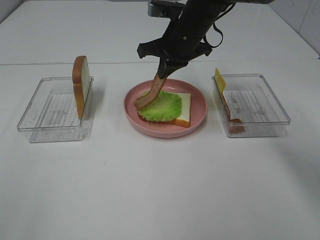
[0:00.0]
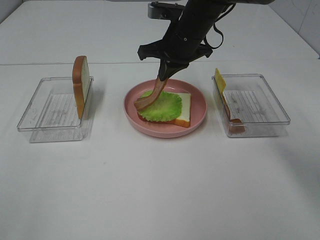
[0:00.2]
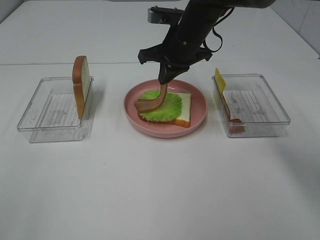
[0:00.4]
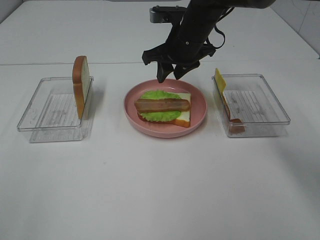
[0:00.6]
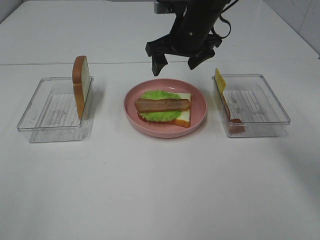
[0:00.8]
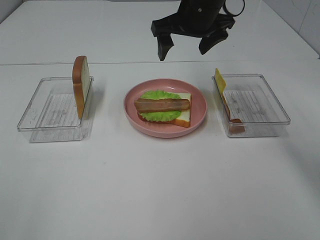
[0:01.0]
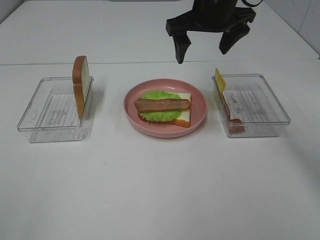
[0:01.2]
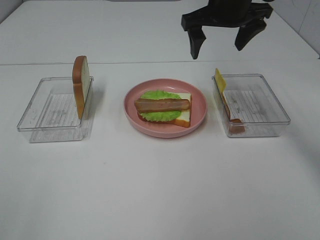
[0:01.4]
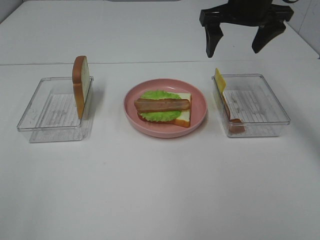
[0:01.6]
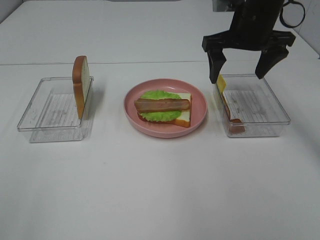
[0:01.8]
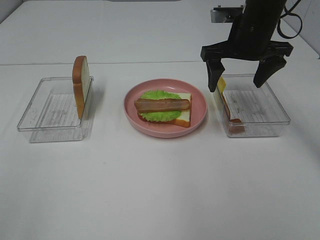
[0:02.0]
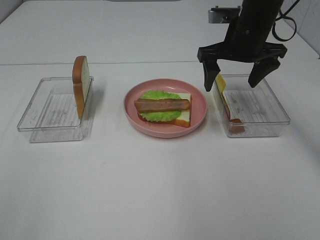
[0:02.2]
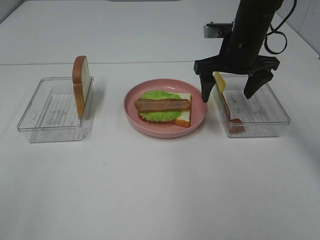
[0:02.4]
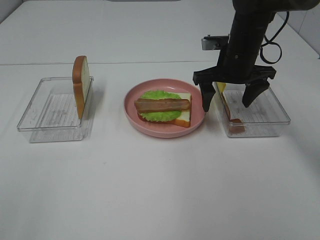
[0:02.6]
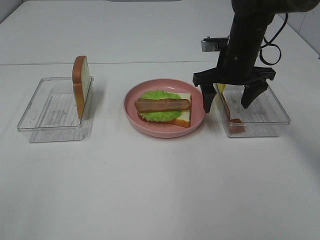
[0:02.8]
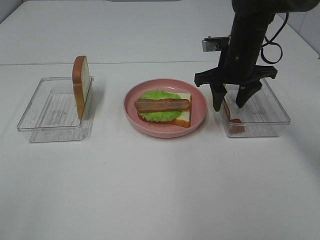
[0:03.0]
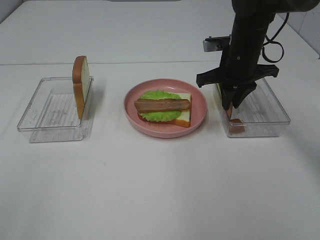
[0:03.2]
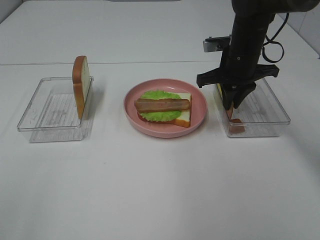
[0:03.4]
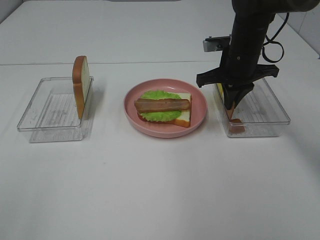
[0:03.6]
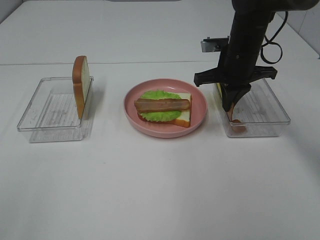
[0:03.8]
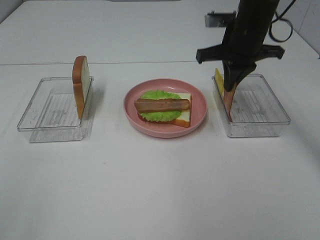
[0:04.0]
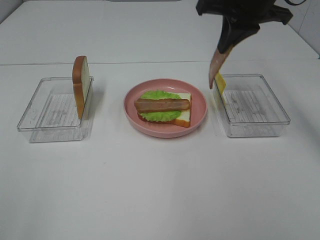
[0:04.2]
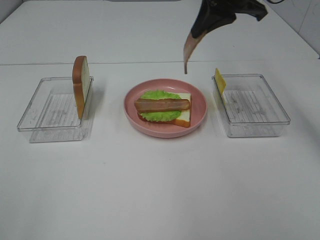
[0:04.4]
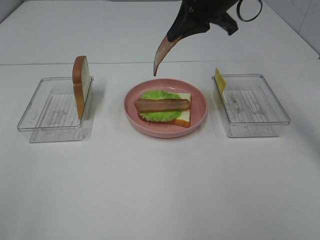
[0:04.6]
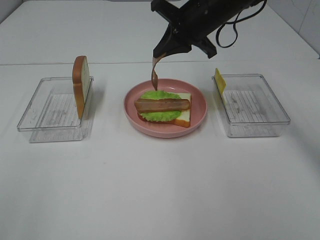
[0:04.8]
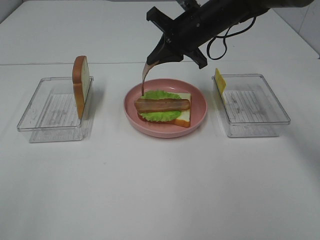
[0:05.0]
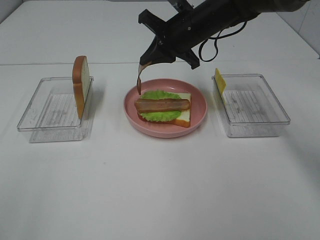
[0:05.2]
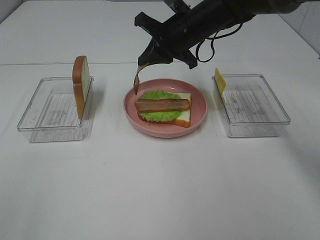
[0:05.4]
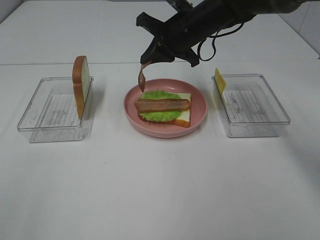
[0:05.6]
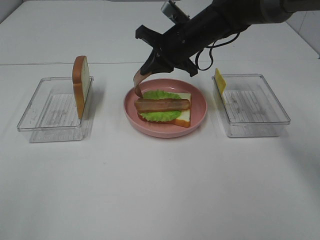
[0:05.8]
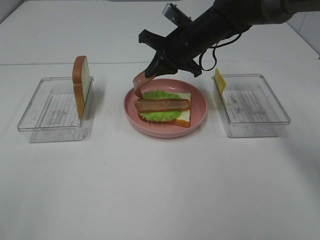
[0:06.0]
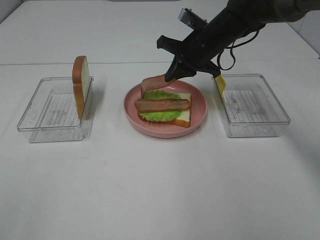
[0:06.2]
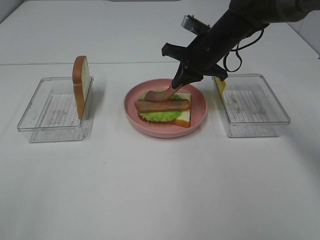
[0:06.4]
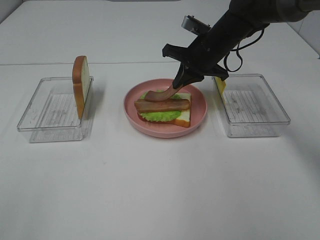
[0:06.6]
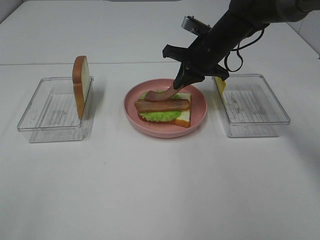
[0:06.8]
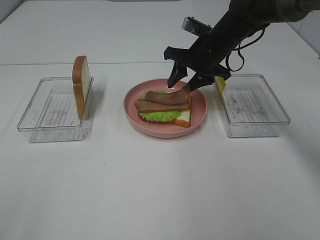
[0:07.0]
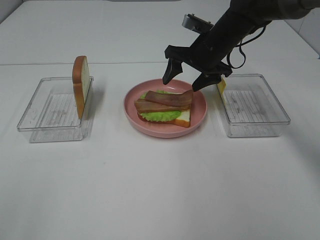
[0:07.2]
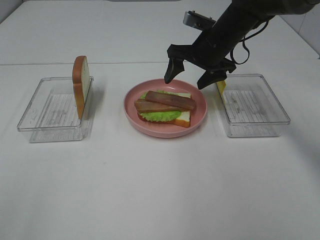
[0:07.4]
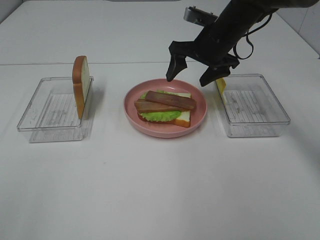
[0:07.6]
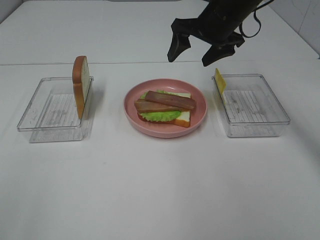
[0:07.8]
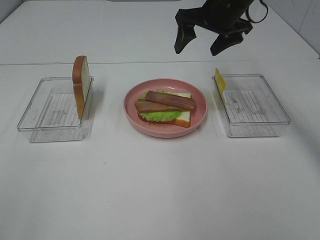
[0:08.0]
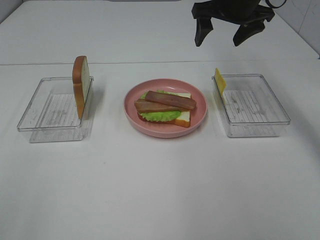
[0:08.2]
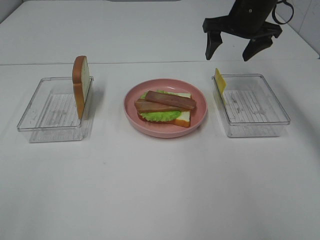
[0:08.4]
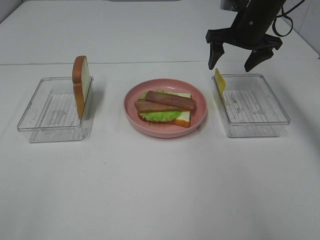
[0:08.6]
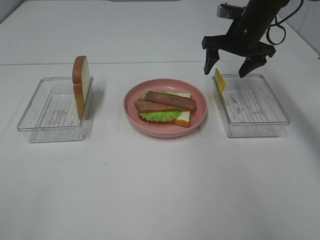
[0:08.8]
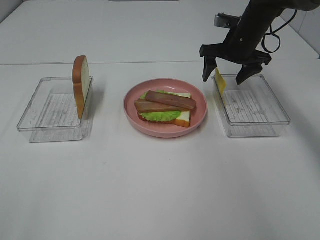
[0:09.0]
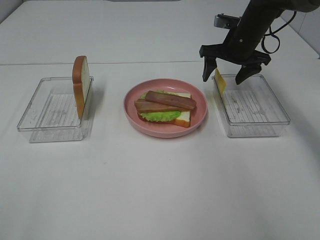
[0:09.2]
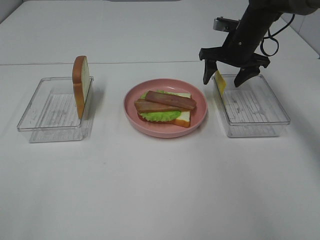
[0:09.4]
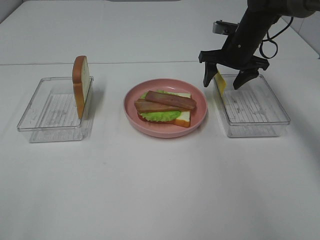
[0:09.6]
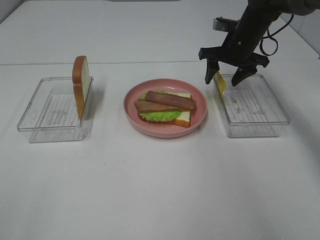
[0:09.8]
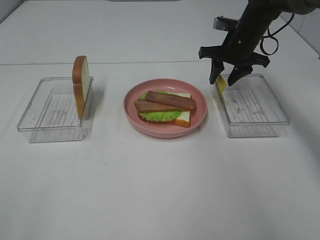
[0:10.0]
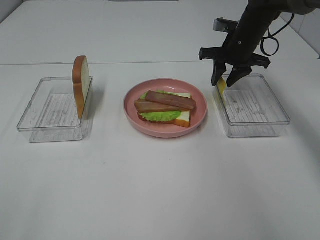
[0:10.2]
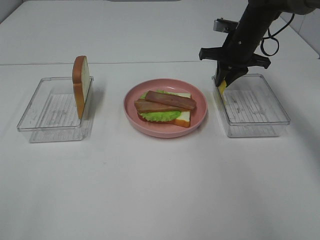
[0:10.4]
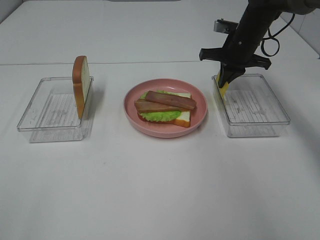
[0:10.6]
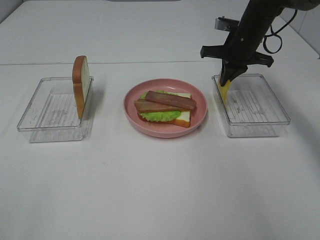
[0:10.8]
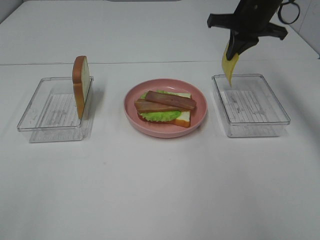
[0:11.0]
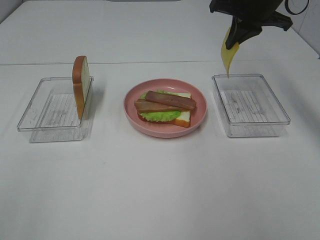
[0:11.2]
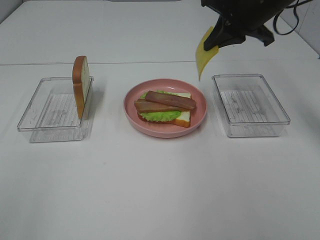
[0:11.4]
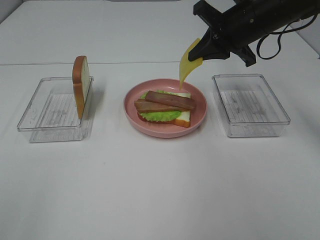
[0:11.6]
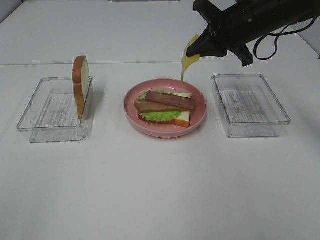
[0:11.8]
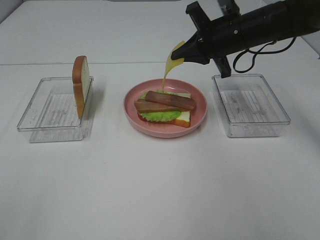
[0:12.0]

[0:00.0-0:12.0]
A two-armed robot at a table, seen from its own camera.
Task of the whole recording: Make sandwiches.
Step, 0:07.6 to 0:10.6: Right hand:grab the cheese slice.
0:00.0 to 0:01.6: The right gripper goes approximately 10 cm to the right and upward, and opens.
0:01.6 to 0:03.0: The right gripper moves downward, some 10 cm, and closes its fingers.
0:03.0 to 0:04.4: The right gripper shifts some 15 cm upward, and closes.
0:04.4 to 0:06.0: The right gripper is displaced downward by about 15 cm.
0:06.0 to 0:07.6: The right gripper moves roughly 5 cm, and opens its fingers.
0:07.6 to 0:09.0: The right gripper travels to the right and forward by approximately 10 cm, and goes upward and returns, some 5 cm each way.
0:09.0 to 0:10.4: The right gripper closes its fingers.
0:10.4 to 0:12.0: The right gripper is displaced backward by approximately 10 cm, and travels upward and back again, some 10 cm each way.

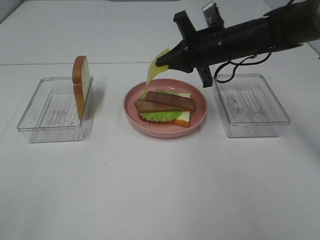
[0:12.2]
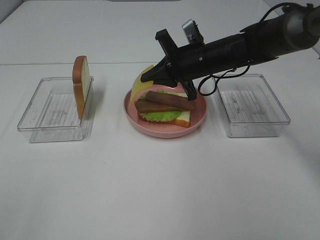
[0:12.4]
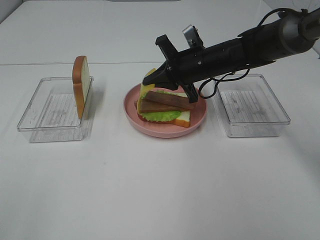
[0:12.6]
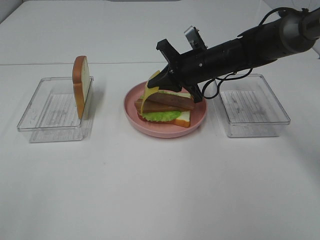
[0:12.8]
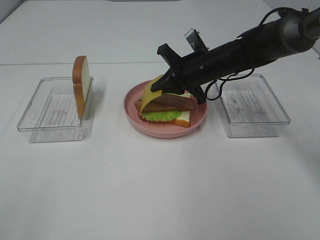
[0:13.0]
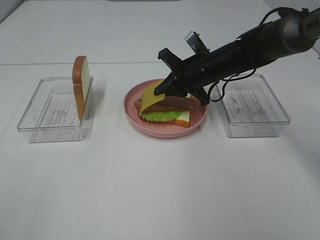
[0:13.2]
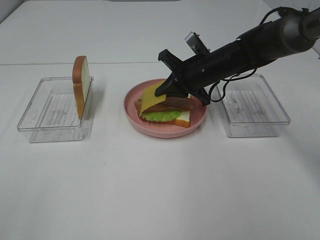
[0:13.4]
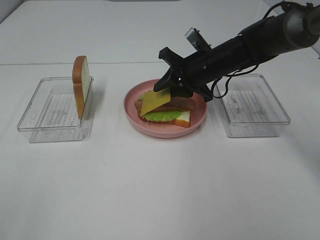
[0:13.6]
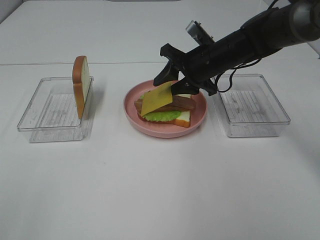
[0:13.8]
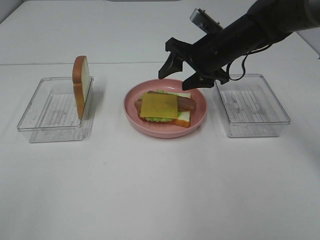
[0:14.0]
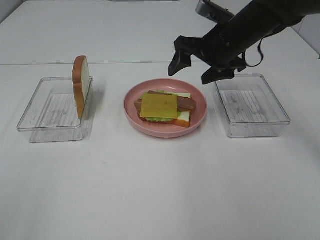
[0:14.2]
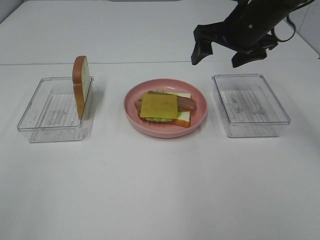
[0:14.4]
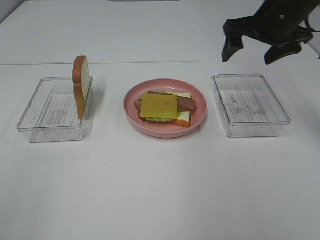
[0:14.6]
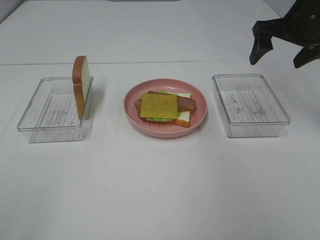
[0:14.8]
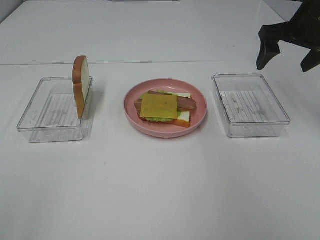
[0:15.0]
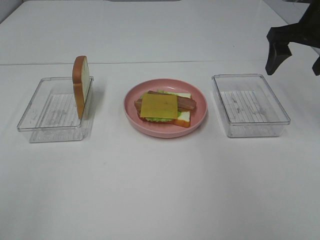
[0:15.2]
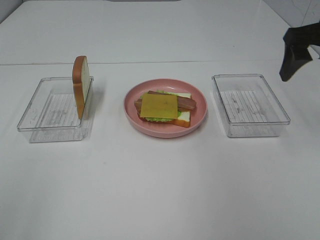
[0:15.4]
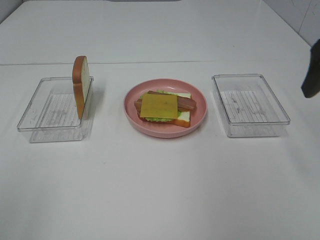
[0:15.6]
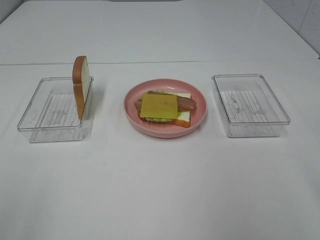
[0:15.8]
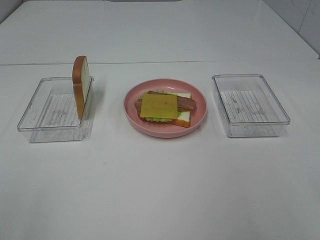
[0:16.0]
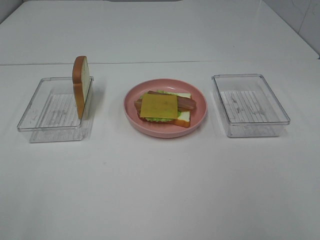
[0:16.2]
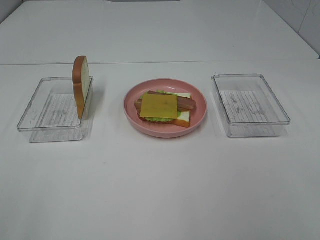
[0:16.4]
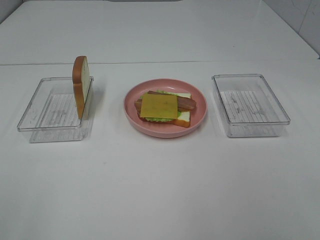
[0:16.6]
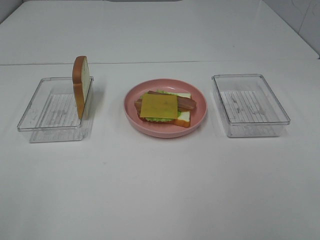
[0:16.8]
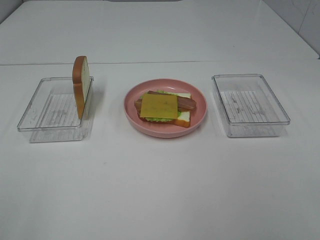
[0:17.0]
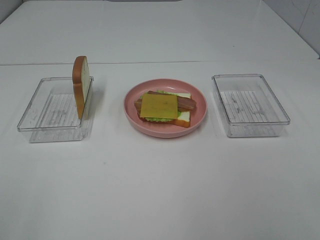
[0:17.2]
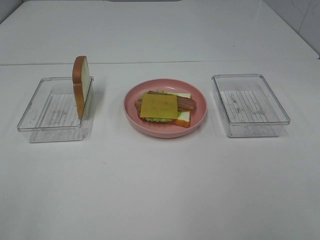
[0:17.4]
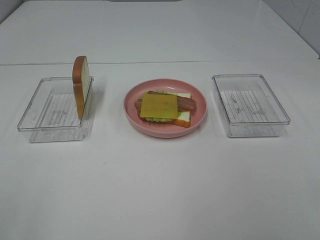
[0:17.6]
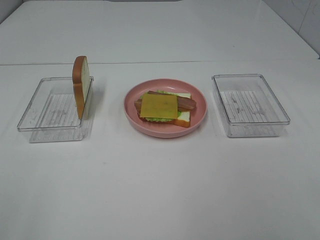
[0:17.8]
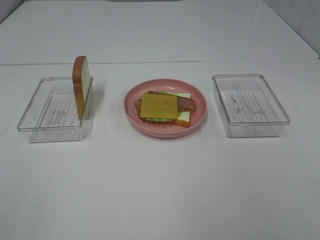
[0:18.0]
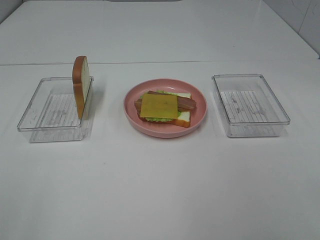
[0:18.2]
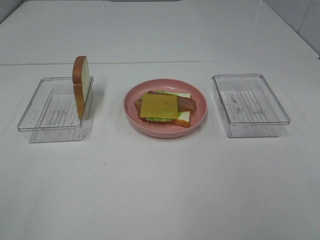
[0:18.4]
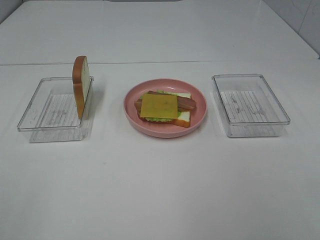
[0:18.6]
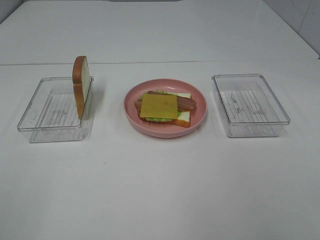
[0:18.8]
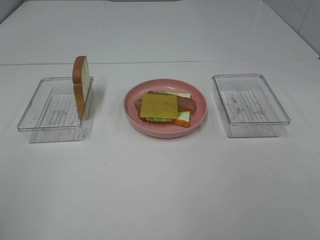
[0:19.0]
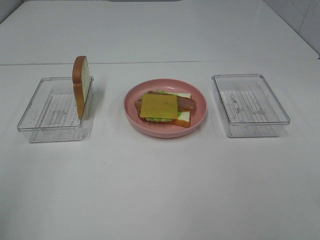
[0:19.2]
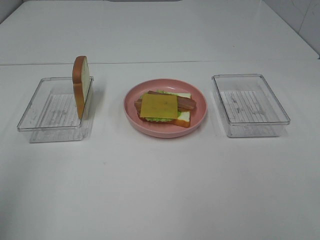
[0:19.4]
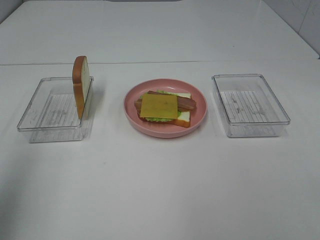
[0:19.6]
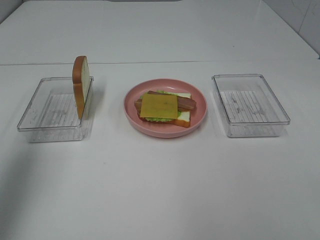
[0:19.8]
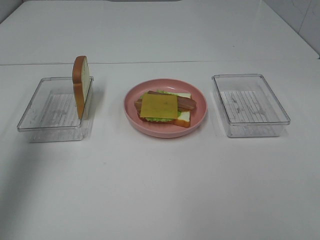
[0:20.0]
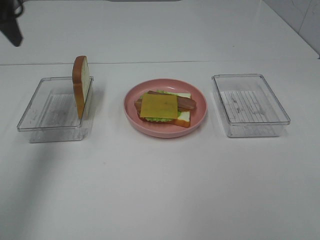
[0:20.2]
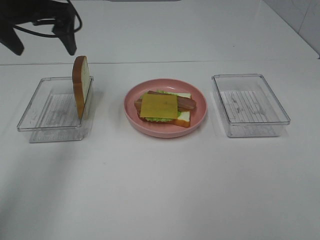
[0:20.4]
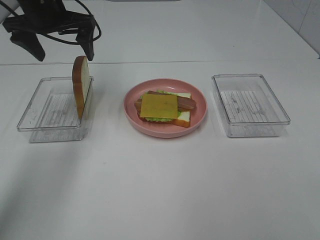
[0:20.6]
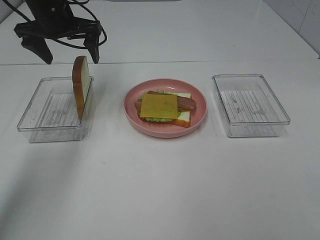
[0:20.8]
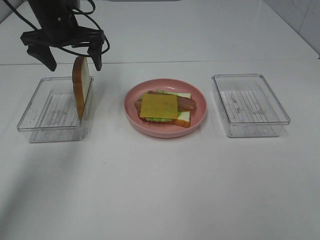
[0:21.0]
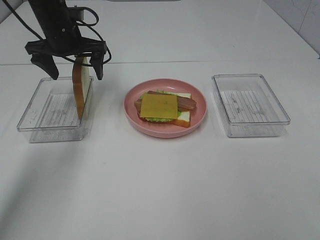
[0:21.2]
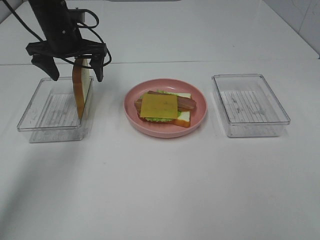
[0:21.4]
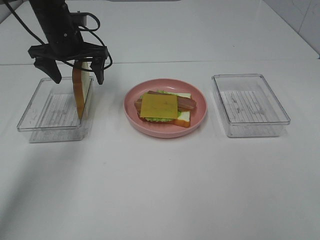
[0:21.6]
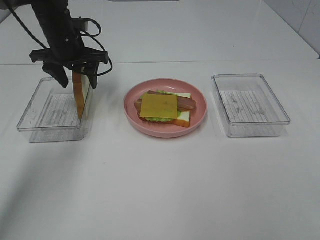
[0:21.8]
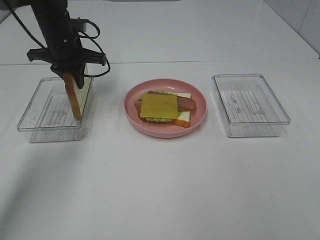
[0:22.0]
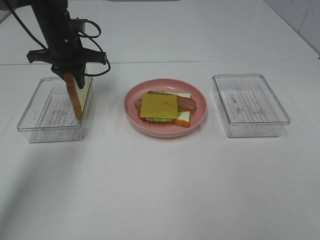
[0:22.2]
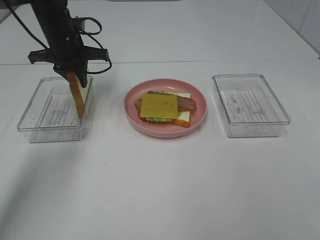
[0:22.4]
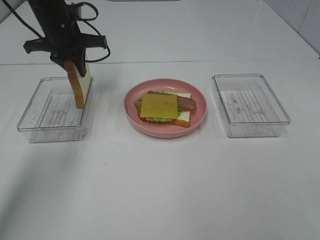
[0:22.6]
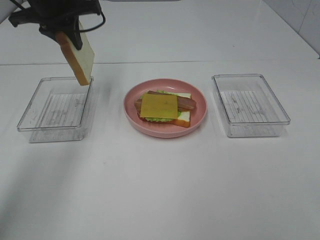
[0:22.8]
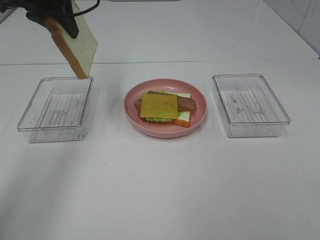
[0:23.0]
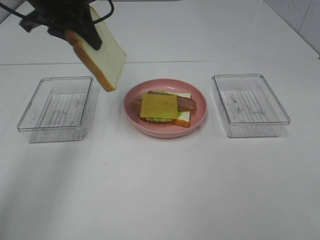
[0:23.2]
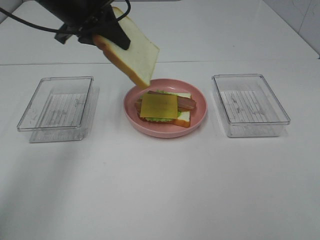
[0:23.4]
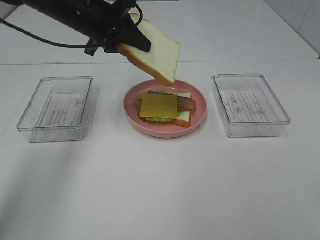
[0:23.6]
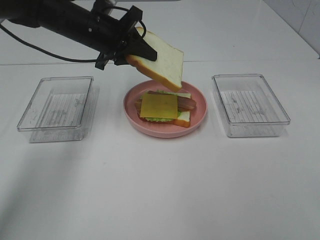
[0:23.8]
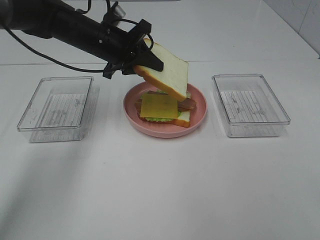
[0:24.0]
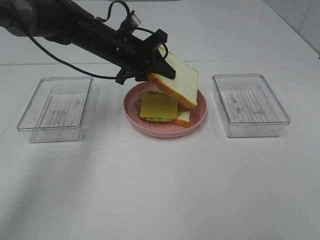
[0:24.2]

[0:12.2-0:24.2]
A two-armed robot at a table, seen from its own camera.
Task of the whole recording: Make sandwiches.
Step, 0:12.2 to 0:14.0: Right hand:place the cheese slice on top of the bacon.
Step, 0:14.2 to 0:22.0: Left hand:grab the bread slice.
0:12.2 to 0:13.8: The right gripper opens up.
0:13.8 to 0:15.2: The right gripper goes roughly 20 cm to the right and upward, and opens.
0:15.2 to 0:16.6: The right gripper heads backward, covering approximately 35 cm.
0:16.6 to 0:18.2: Both grippers stay put.
0:18.2 to 0:19.8: The left gripper shifts approximately 25 cm forward.
0:19.8 to 0:21.2: The left gripper travels forward, downward and to the right by about 35 cm.
0:21.2 to 0:22.6: The left gripper closes its fingers.
0:22.6 to 0:24.2: The left gripper heads to the right and downward, covering some 10 cm.
